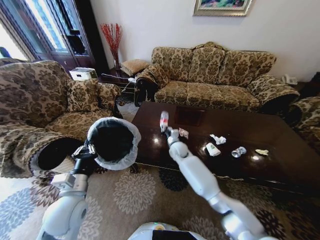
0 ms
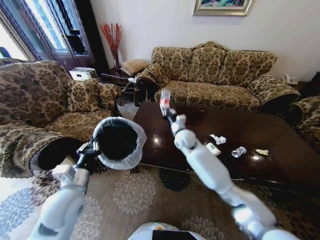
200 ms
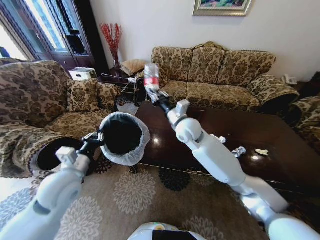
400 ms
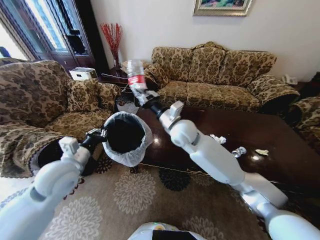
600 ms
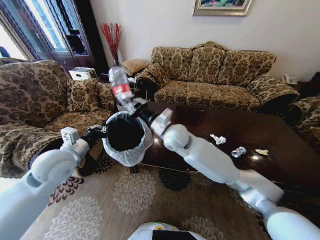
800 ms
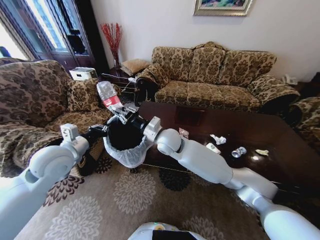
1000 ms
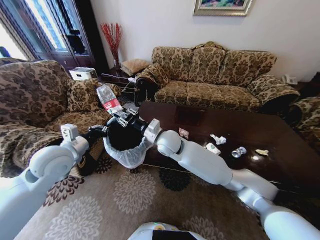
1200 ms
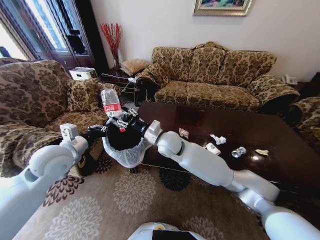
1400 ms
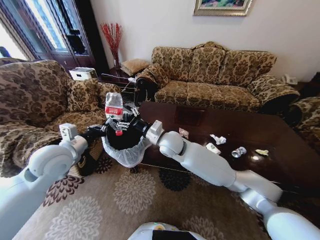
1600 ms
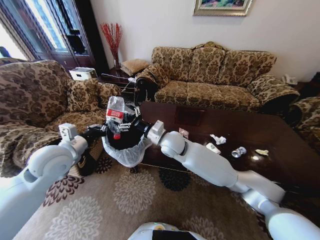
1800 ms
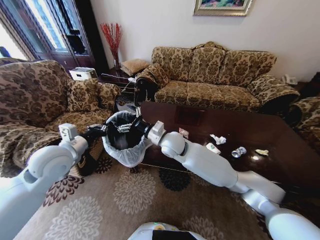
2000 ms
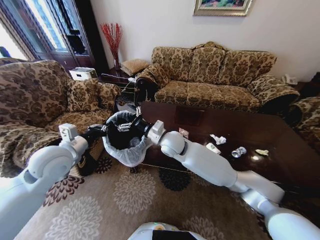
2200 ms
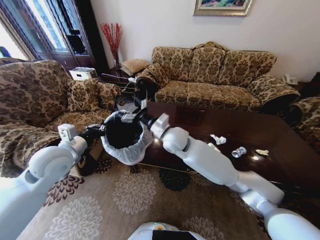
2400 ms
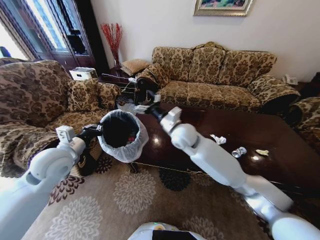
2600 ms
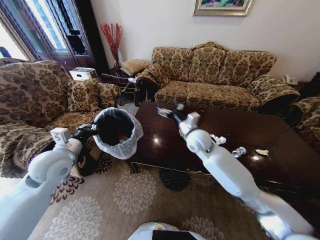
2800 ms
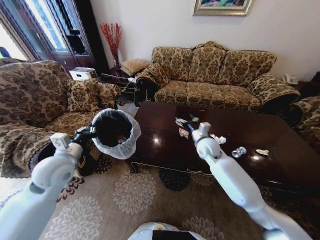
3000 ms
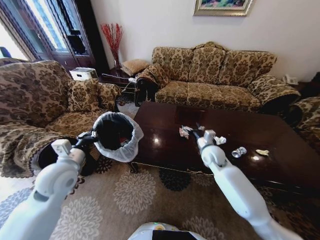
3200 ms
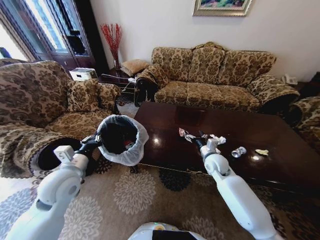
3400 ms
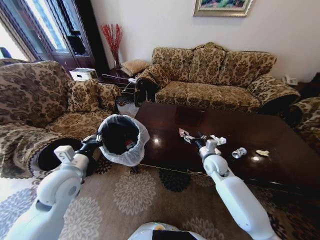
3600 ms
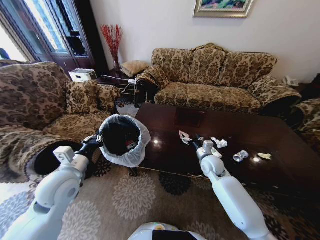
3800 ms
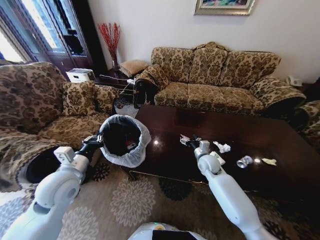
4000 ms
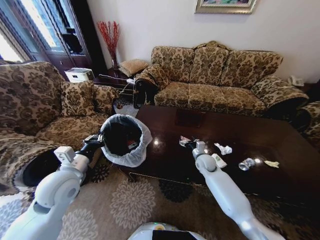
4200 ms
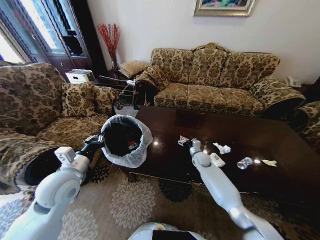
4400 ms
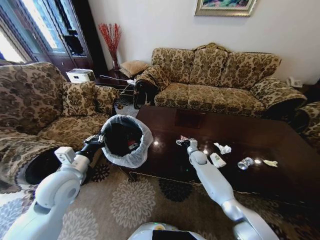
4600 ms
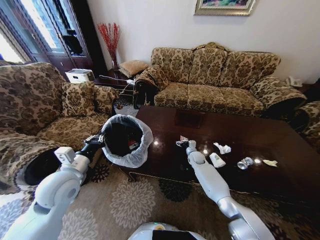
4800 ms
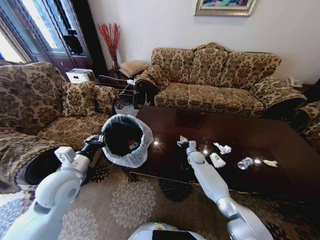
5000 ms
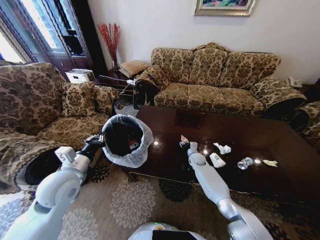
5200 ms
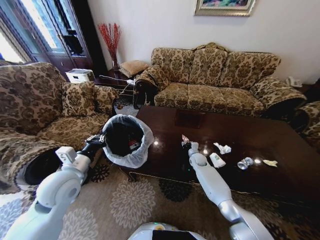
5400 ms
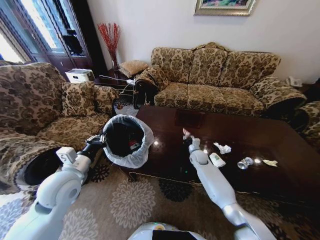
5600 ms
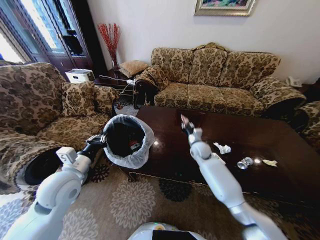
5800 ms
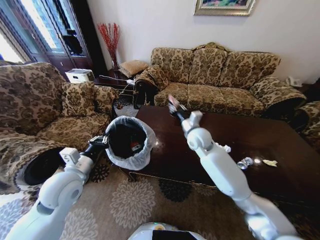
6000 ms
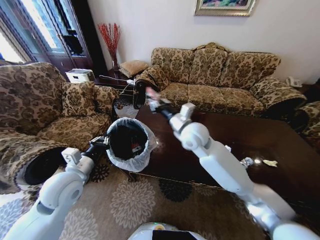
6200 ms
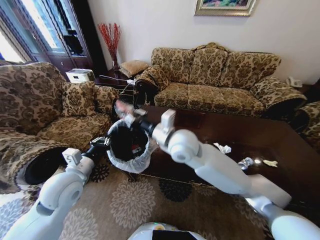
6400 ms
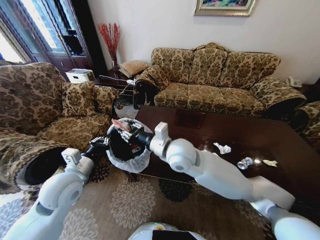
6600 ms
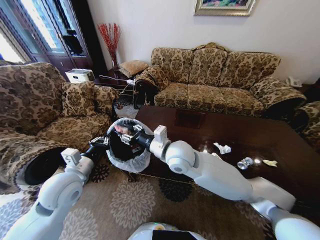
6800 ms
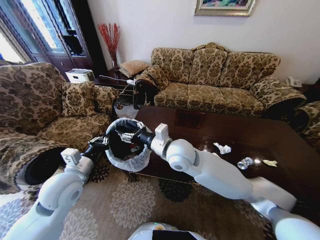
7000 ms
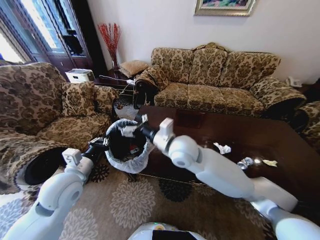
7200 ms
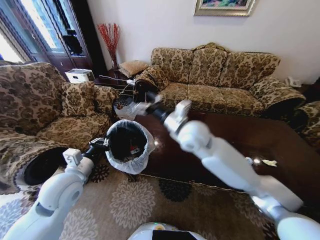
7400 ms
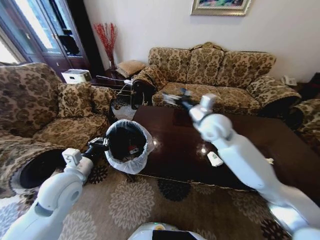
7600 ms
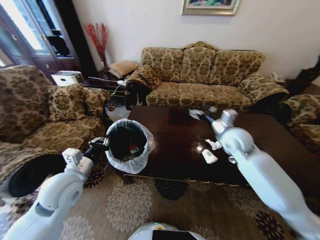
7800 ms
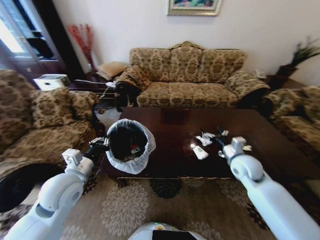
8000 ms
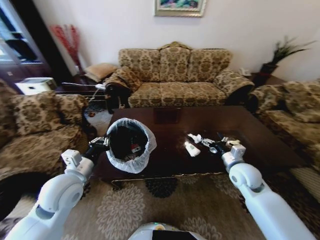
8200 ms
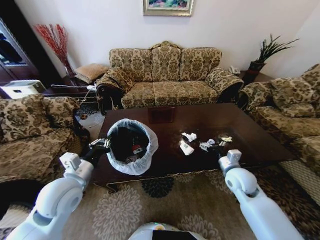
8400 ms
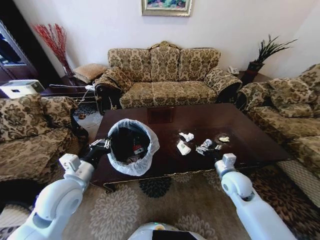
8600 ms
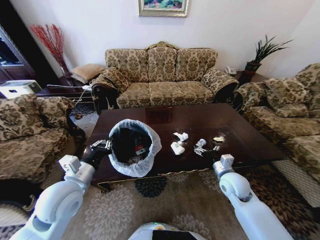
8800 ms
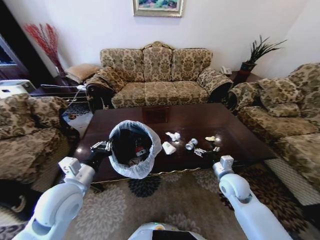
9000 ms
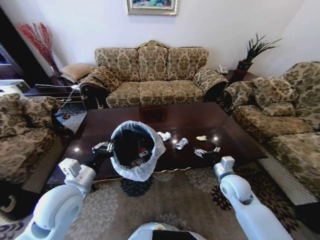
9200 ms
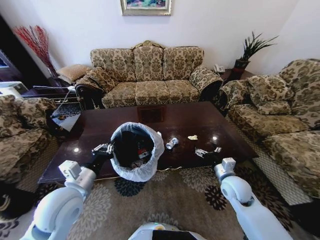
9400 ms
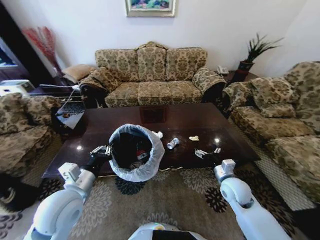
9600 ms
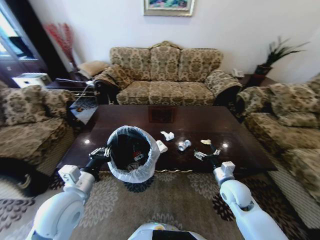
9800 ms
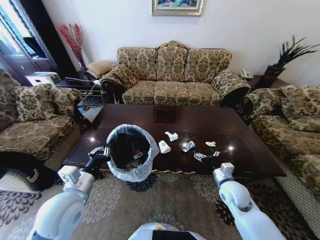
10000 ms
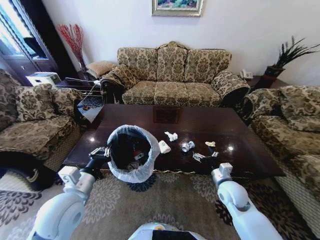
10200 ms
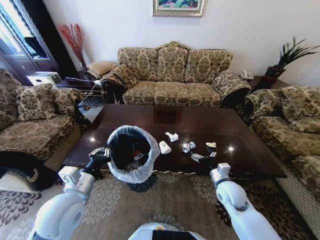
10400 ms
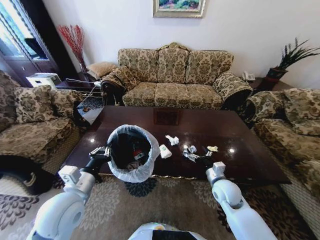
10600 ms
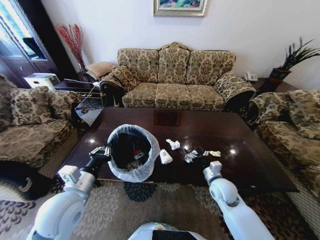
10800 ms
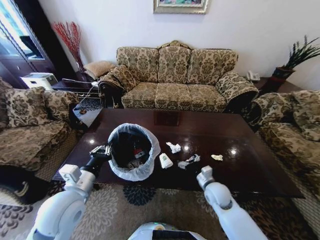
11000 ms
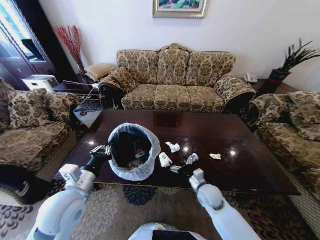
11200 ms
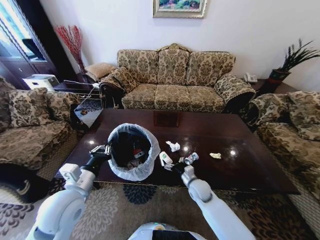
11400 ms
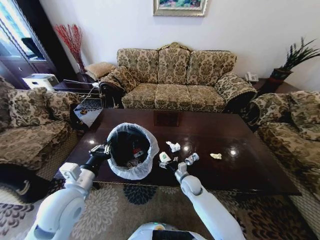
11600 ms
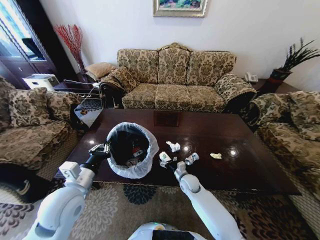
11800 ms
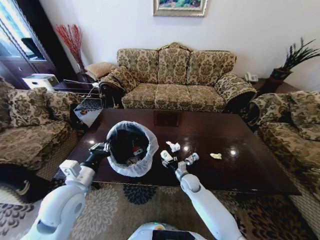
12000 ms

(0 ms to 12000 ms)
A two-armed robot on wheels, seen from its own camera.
Task of the whole recording: Move to the front of the table and place the trash on the table into the trash bin.
0 ms - 1600 ms: The left gripper heads upward, forward and to the left, covering roughly 15 cm. The right gripper is displaced upward, backward and to the left by some 20 cm, and opens up.
1600 ms - 3000 ms: The right gripper shifts roughly 20 cm to the right.
3000 ms - 4400 ms: The right gripper shifts some 15 cm downward; the left gripper shifts by some 5 cm.
4400 ms - 6000 ms: The right gripper shifts roughly 25 cm upward, and closes up.
6000 ms - 7600 ms: The right gripper is displaced upward by approximately 10 cm, moves about 10 cm to the left and comes back, and opens its fingers.
7600 ms - 9000 ms: The right gripper shifts roughly 25 cm downward, backward and to the right.
10400 ms - 12000 ms: The right gripper travels downward, to the left and forward by about 20 cm.

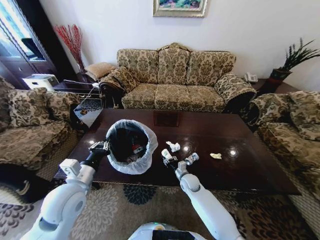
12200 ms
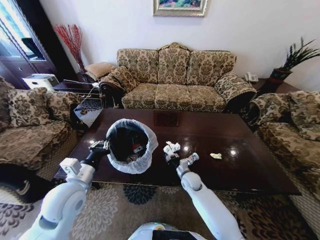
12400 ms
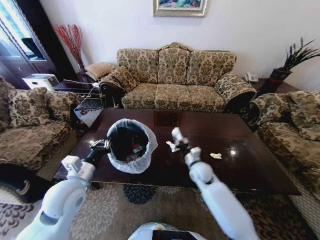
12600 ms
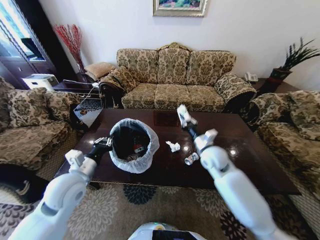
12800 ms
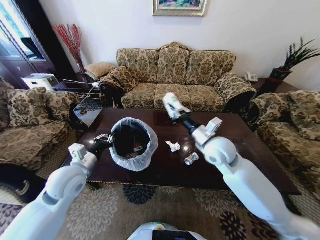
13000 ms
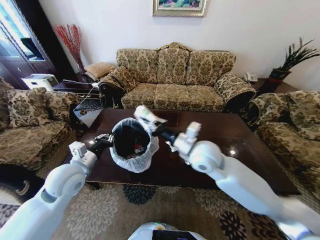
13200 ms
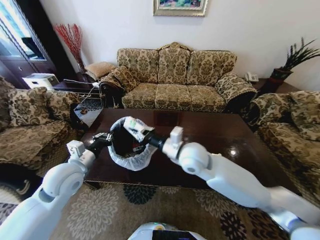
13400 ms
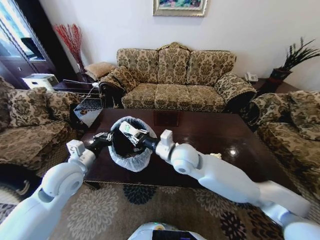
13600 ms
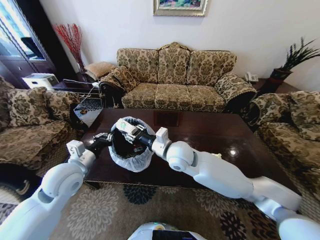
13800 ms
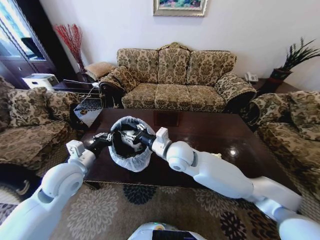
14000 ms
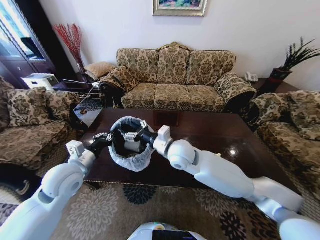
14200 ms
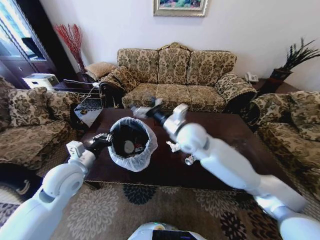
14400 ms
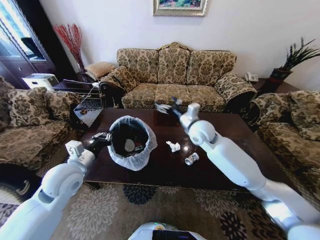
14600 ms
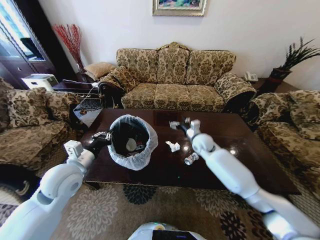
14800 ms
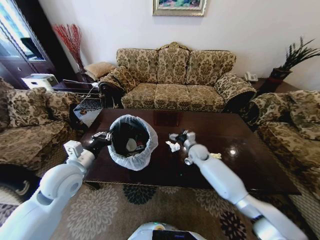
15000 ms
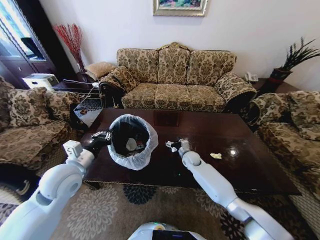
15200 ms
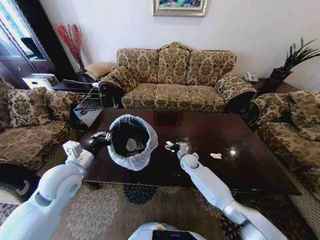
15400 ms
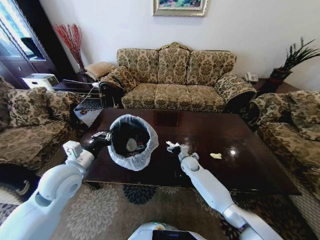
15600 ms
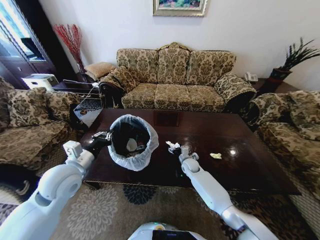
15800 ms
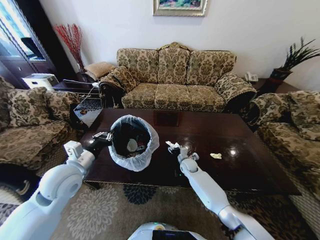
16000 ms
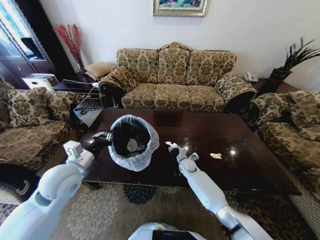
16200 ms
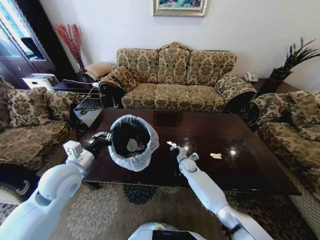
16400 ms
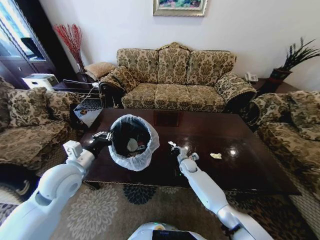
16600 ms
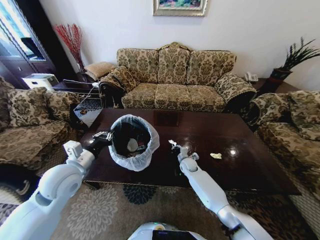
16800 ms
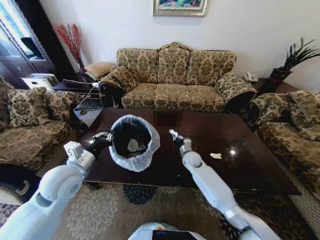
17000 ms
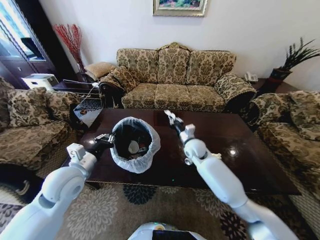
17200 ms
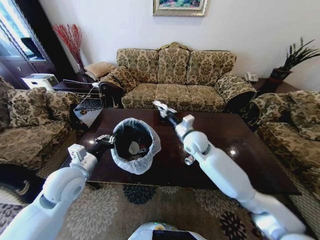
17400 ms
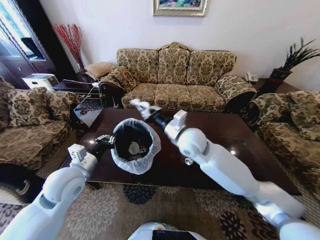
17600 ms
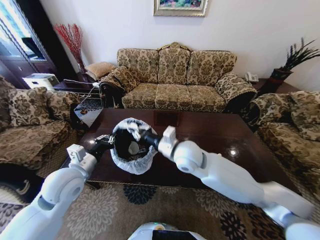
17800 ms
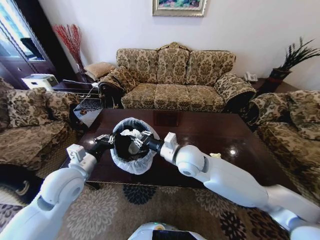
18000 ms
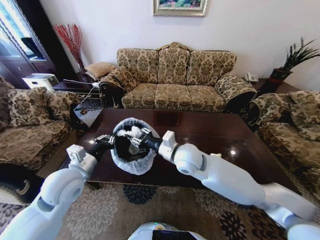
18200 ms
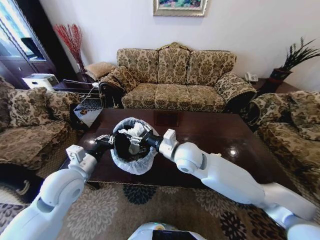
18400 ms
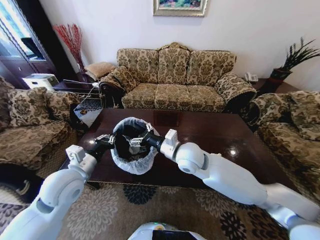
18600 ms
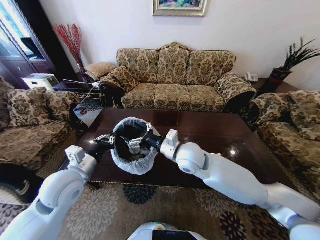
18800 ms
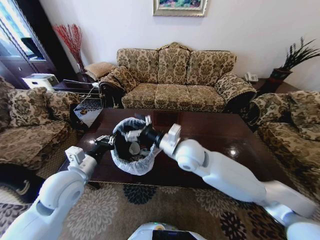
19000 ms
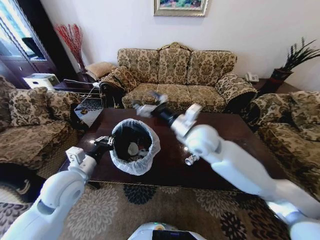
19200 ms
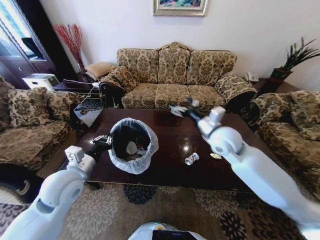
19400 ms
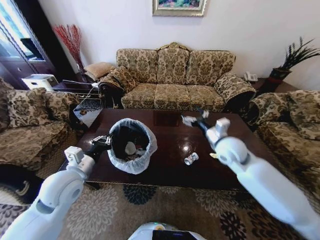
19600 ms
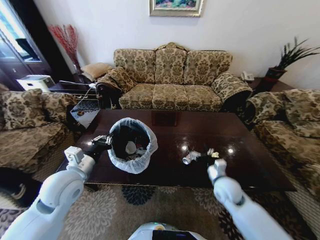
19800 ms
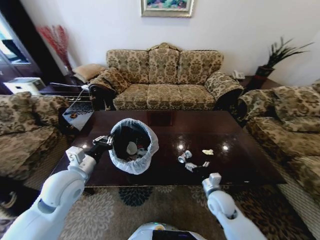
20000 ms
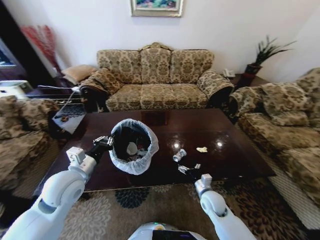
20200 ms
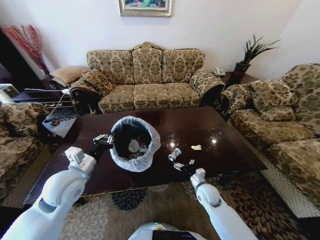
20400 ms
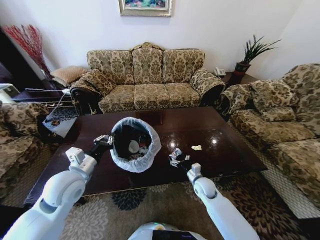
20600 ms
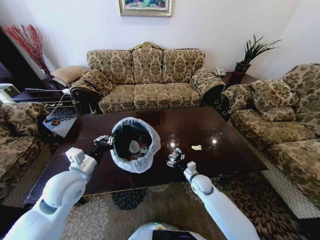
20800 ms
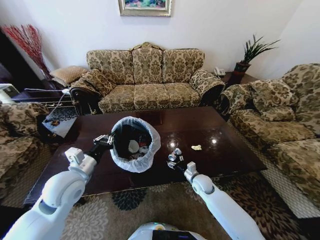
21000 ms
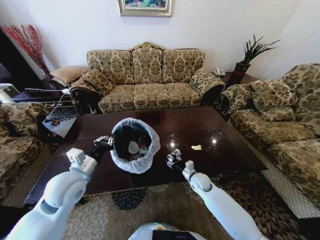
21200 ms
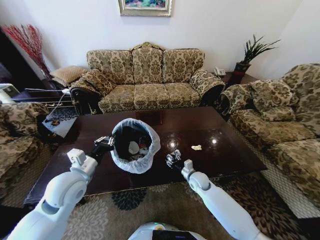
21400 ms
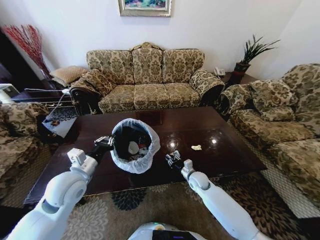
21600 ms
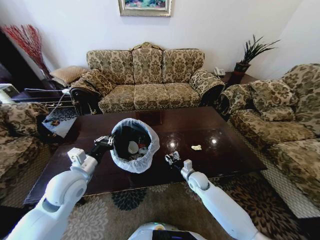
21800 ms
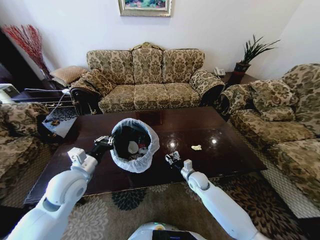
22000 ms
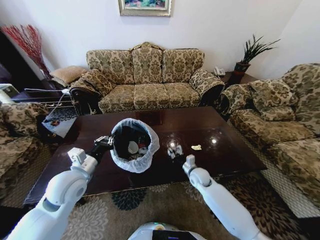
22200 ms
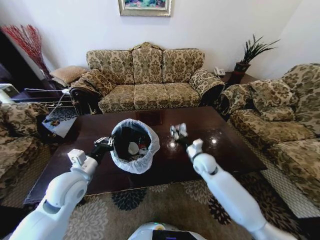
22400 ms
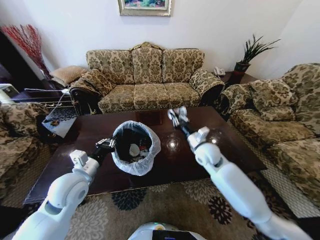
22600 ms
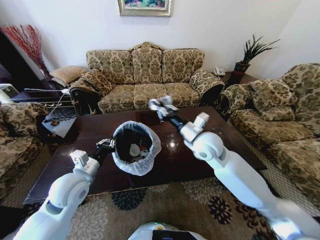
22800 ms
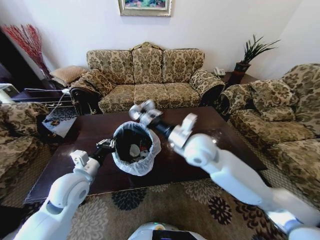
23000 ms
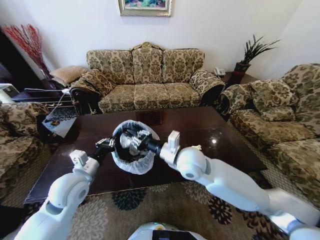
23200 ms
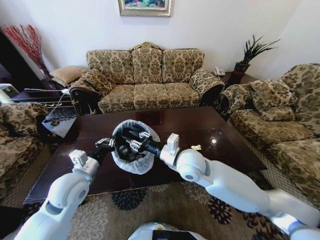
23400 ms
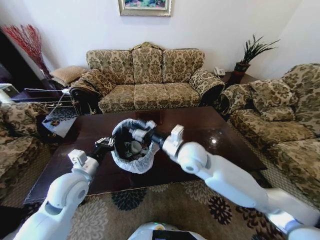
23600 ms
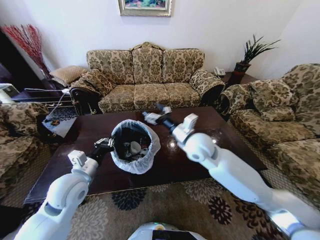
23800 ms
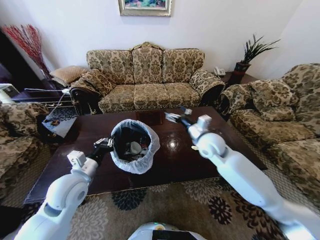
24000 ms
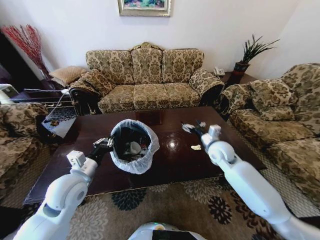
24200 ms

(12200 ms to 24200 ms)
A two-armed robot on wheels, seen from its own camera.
Task of the whole recording: Move to the front of the table and place the trash on the table into the trash bin.
12200 ms - 13800 ms: The left gripper travels forward by about 5 cm; the right gripper travels upward by approximately 30 cm, and closes, then reopens.
13800 ms - 15200 ms: The right gripper moves downward, forward and to the right, about 30 cm, and opens up.
15200 ms - 16600 ms: The right gripper heads downward, covering about 5 cm, and closes.
16600 ms - 18200 ms: The right gripper goes some 30 cm upward and backward, and opens its fingers.
18200 ms - 19800 ms: The right gripper goes approximately 25 cm to the right and downward, and opens up.
19800 ms - 21200 ms: The right gripper travels downward, to the left and forward by about 15 cm, and closes up.
21200 ms - 22600 ms: The right gripper heads upward, covering about 25 cm, and closes up.
22600 ms - 24200 ms: The right gripper goes about 5 cm to the right, and opens its fingers.
